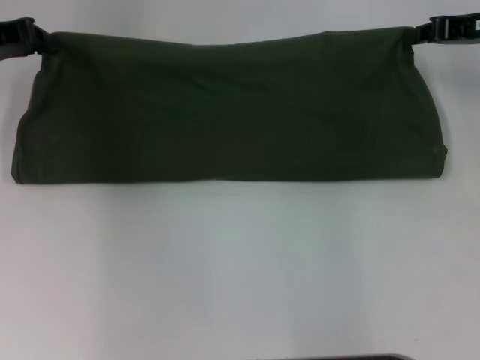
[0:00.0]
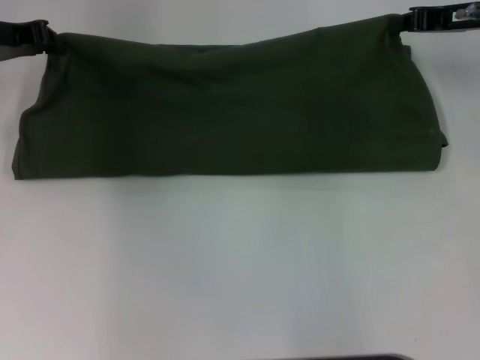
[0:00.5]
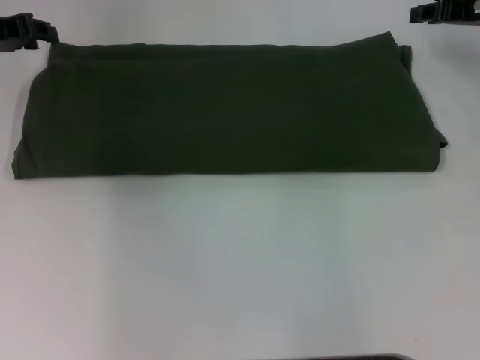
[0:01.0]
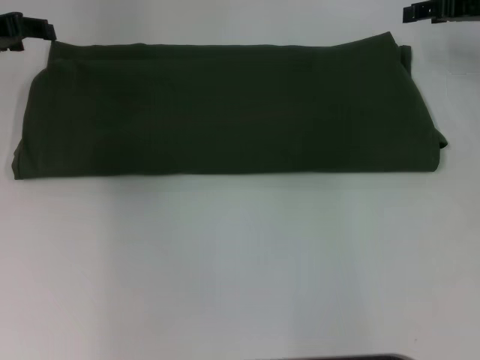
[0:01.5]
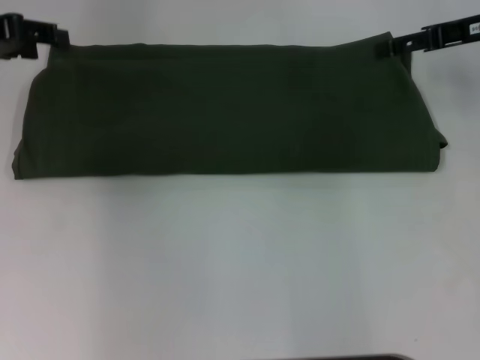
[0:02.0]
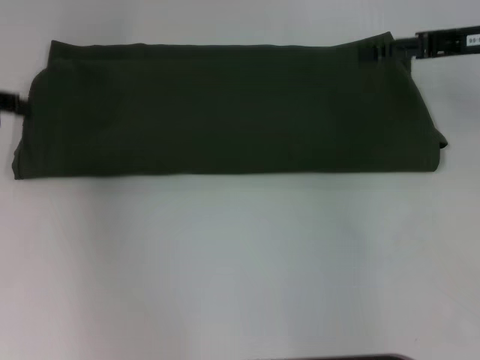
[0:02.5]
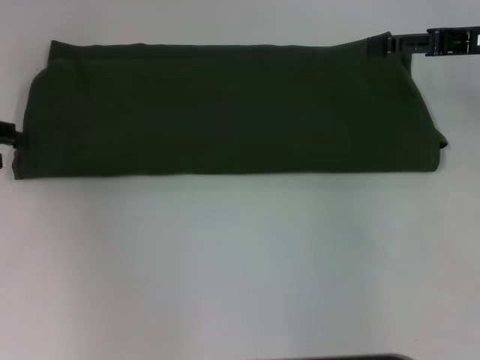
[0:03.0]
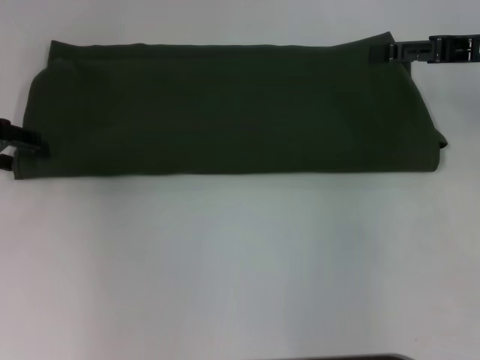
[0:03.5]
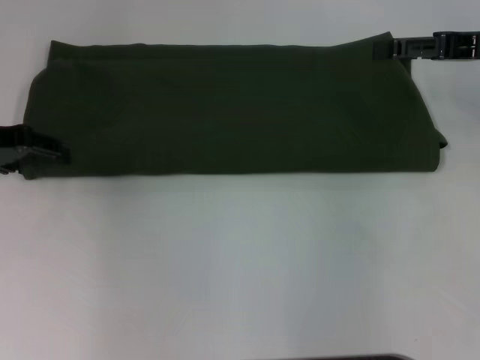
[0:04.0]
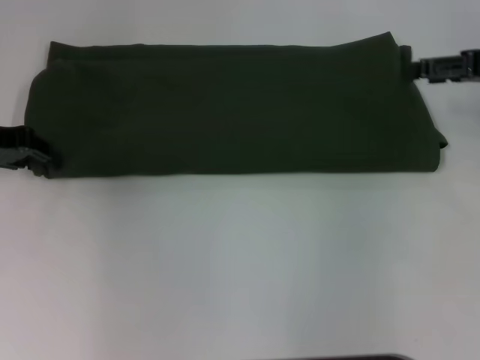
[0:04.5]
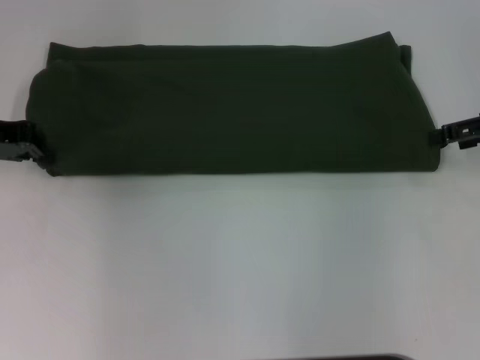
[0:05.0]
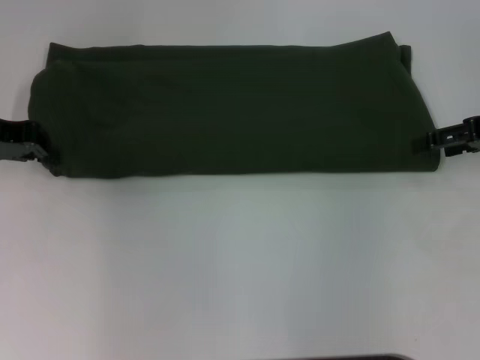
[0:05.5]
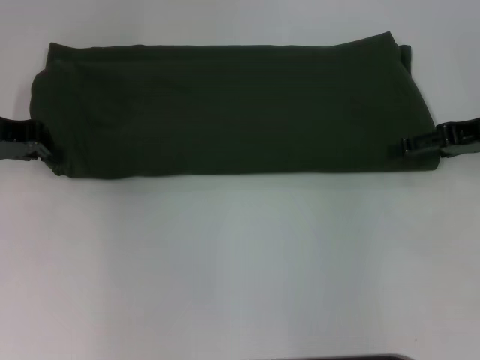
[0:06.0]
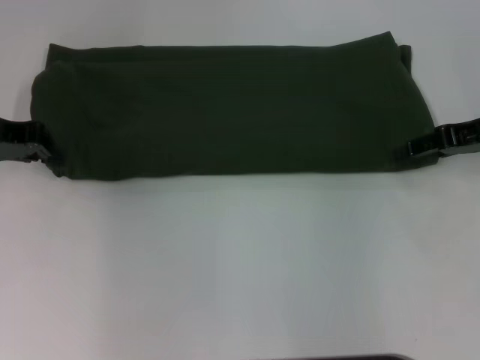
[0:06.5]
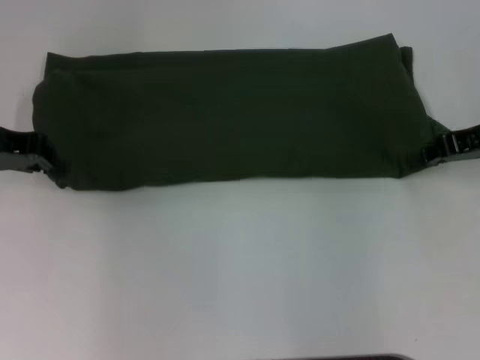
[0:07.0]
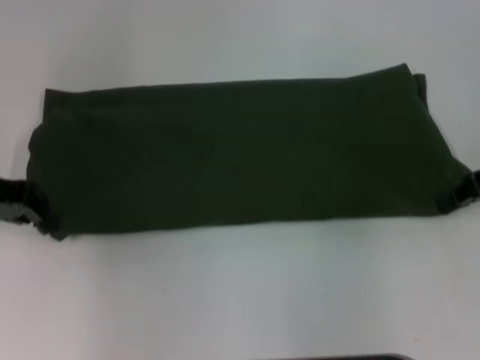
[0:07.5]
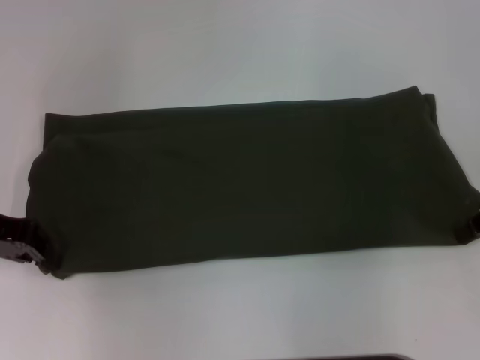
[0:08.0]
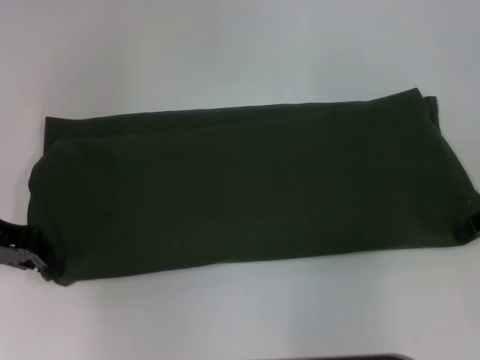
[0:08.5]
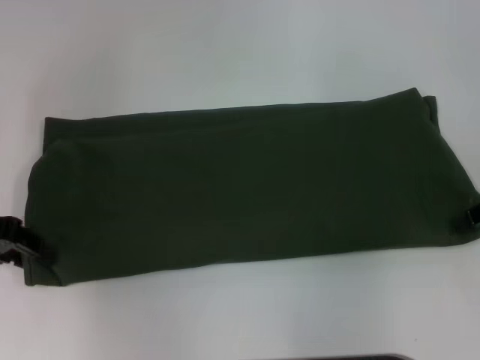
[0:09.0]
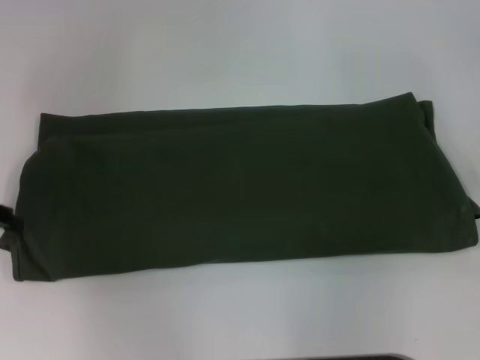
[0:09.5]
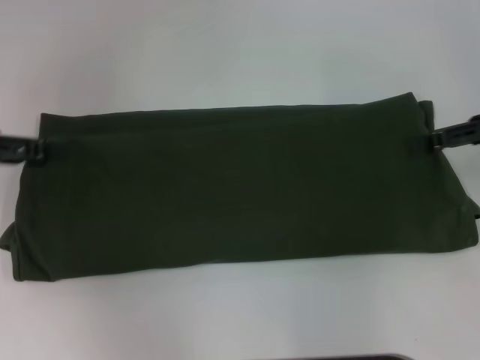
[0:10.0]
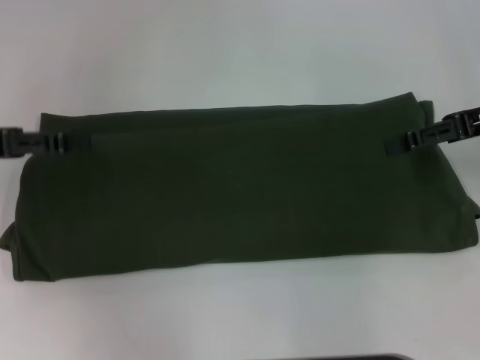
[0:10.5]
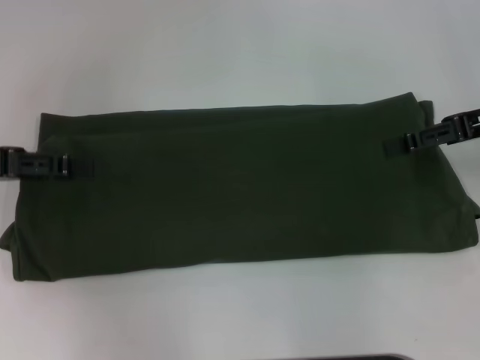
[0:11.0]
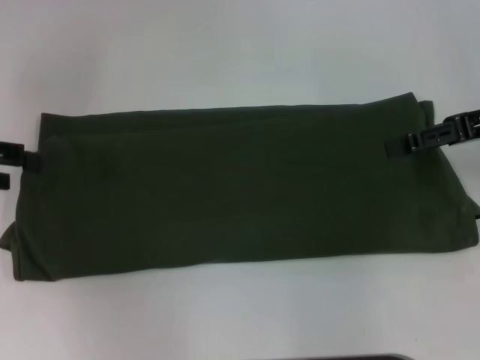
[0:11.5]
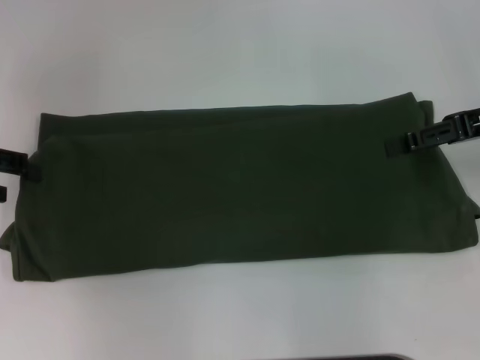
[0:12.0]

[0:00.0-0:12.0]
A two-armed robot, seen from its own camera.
0:00.0 to 0:02.0: The right gripper opens its fingers. The left gripper opens up.
0:02.0 to 0:04.0: The left gripper shifts some 5 cm downward.
0:04.0 to 0:06.0: The left gripper closes its fingers.
0:06.0 to 0:08.0: The right gripper closes its fingers, while the left gripper is displaced backward by some 5 cm.
0:08.0 to 0:10.0: The right gripper opens its fingers. The left gripper heads upward, covering roughly 5 cm, and opens.

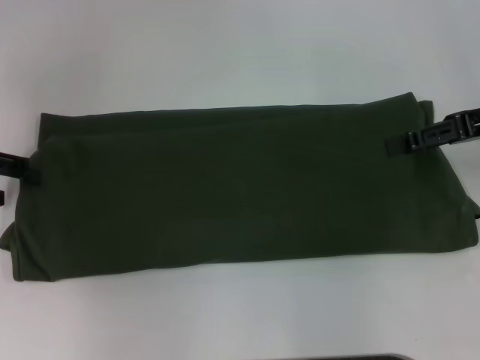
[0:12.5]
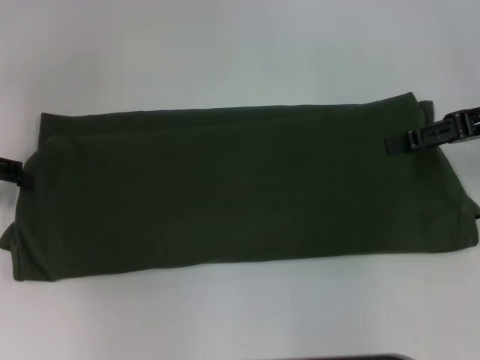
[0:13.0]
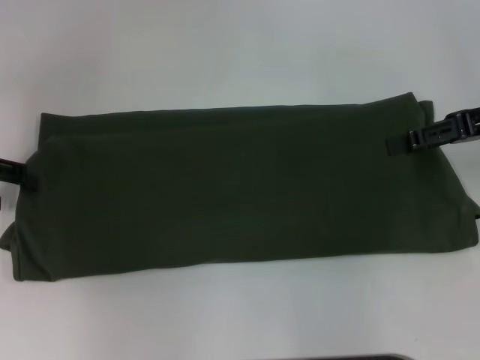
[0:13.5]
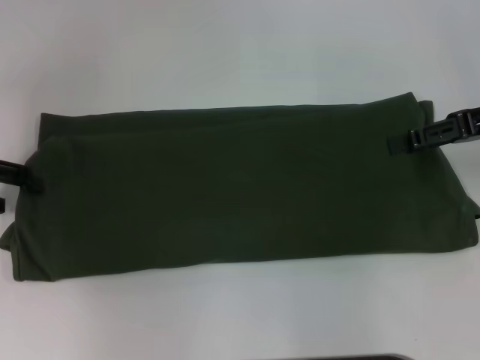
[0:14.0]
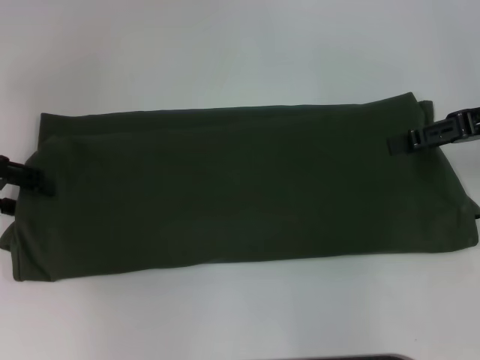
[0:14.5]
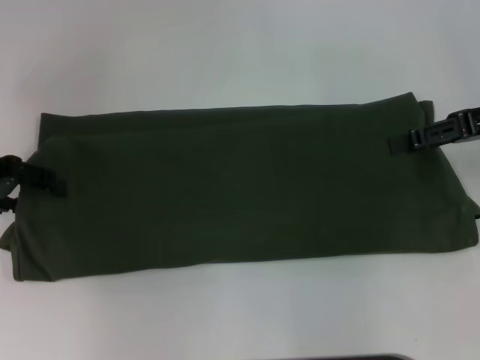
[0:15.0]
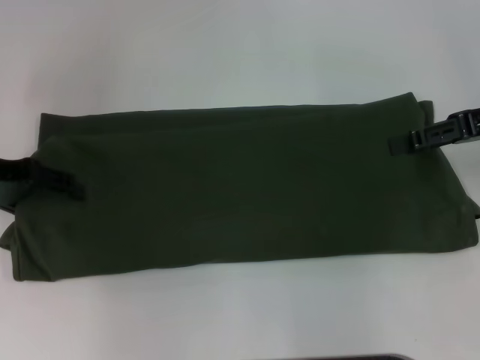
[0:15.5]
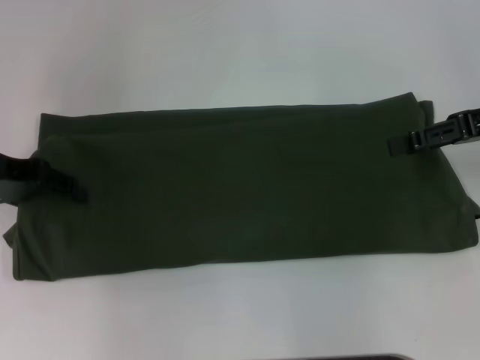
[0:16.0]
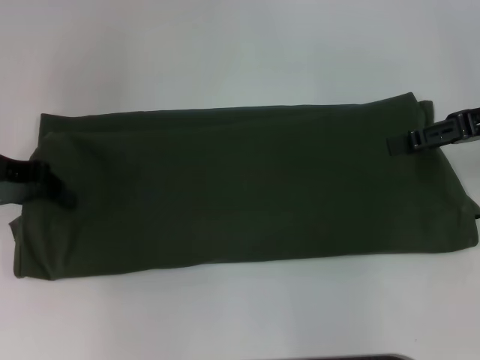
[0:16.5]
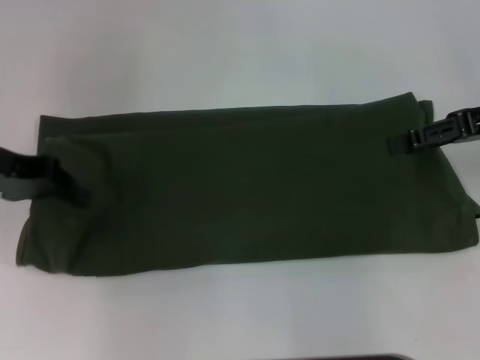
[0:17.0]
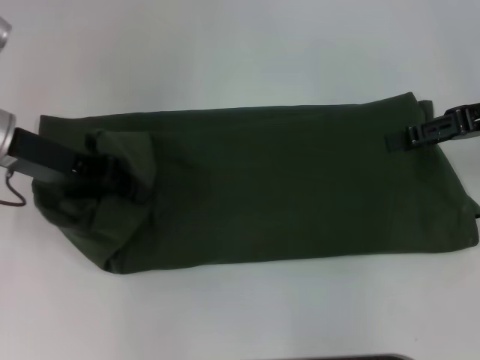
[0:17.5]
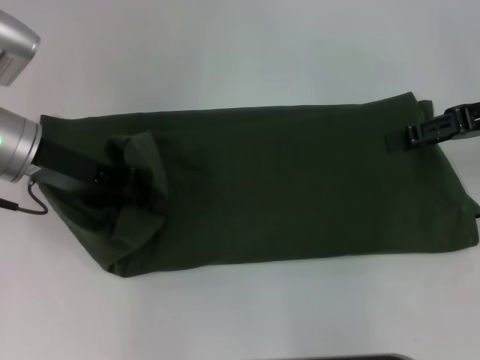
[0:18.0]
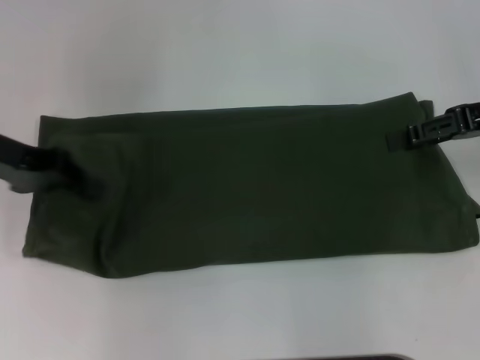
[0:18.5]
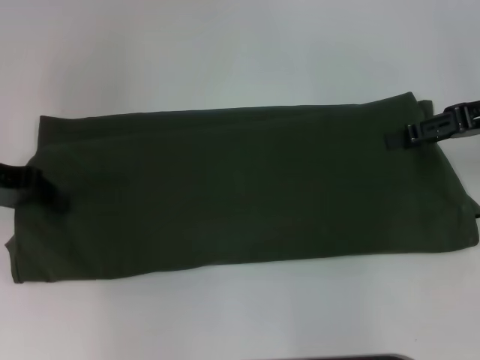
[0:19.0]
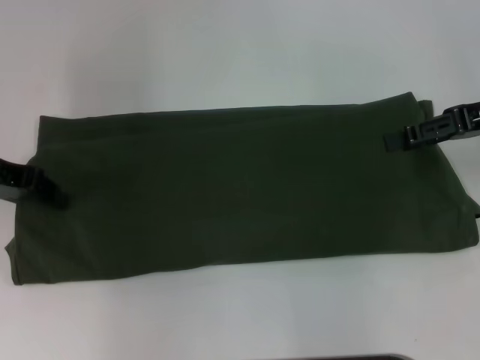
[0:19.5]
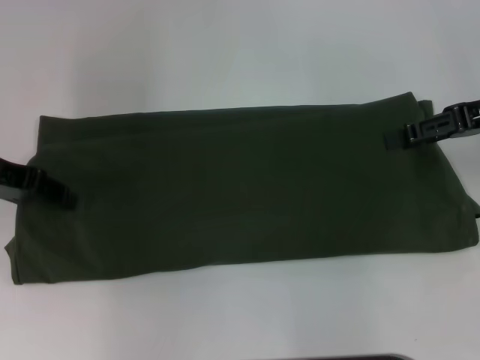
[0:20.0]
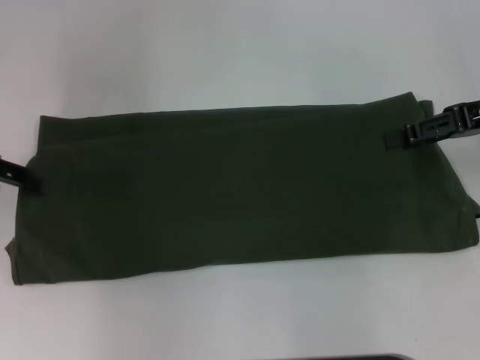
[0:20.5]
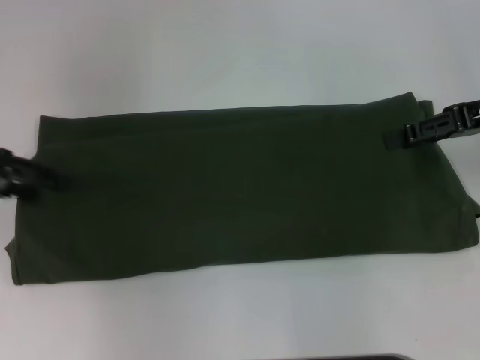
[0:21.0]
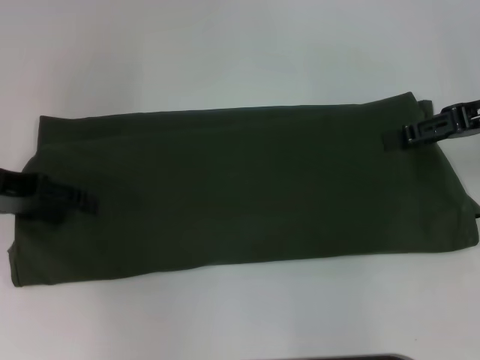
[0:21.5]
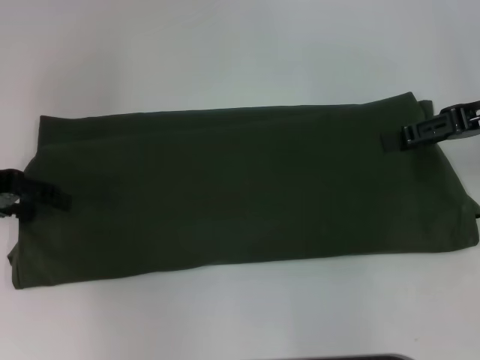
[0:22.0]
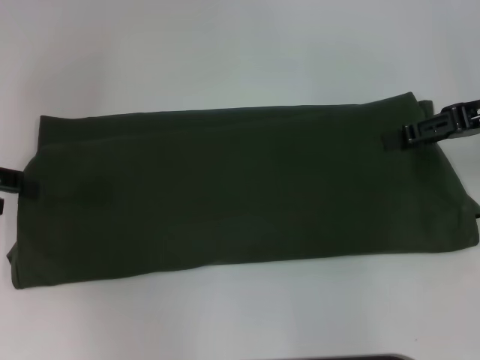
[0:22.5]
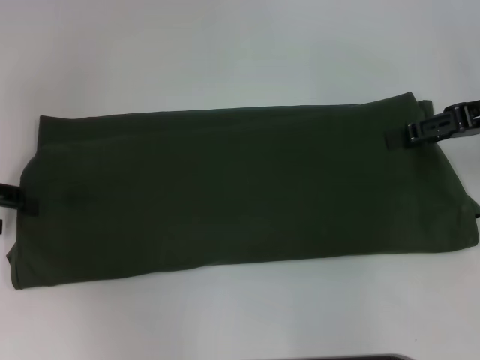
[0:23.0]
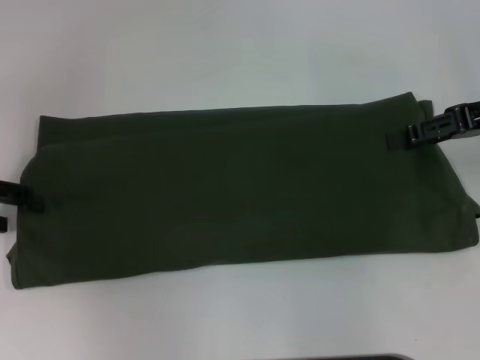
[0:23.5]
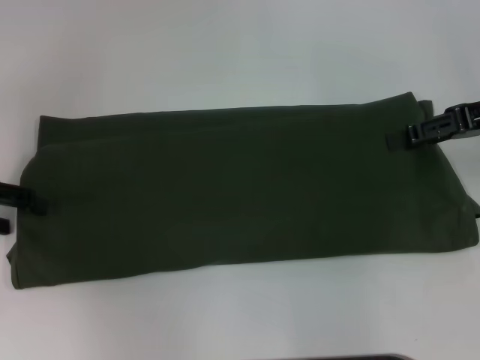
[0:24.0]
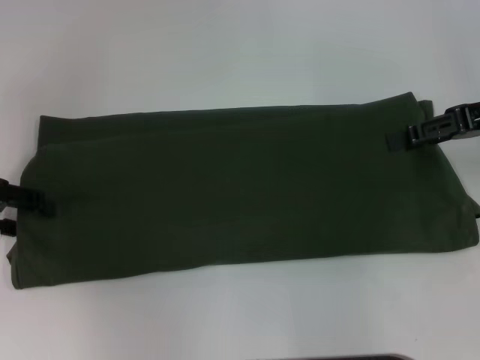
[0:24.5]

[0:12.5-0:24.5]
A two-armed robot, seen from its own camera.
0:14.5 to 0:16.5: The left gripper closes up.
0:16.5 to 0:18.5: The left gripper reaches roughly 10 cm to the right, then returns.
0:18.5 to 0:20.5: The left gripper opens.
0:22.5 to 0:24.5: The grippers make only small movements.

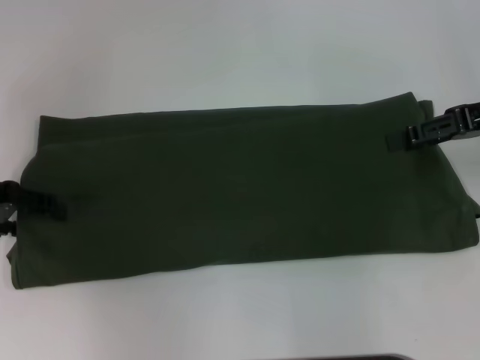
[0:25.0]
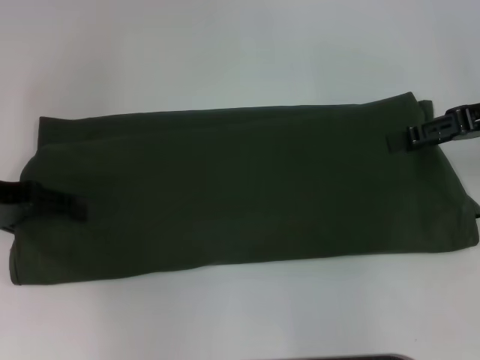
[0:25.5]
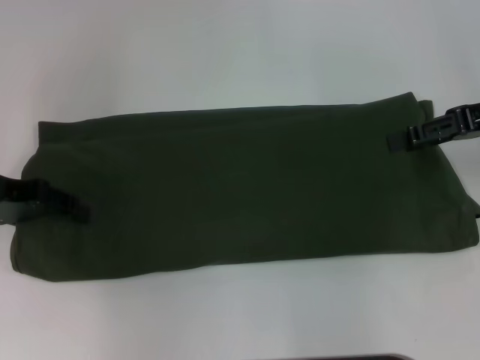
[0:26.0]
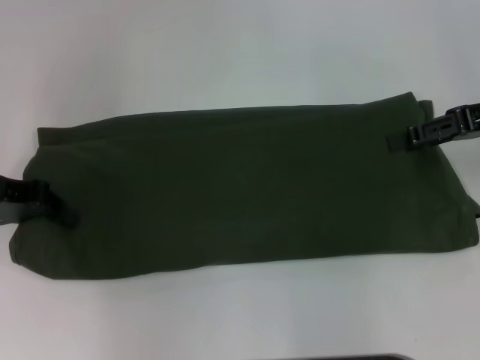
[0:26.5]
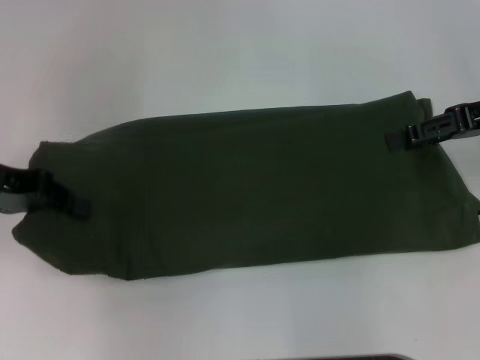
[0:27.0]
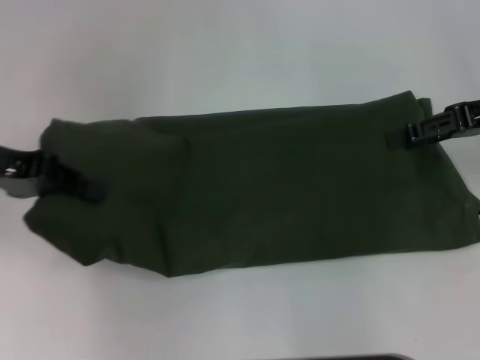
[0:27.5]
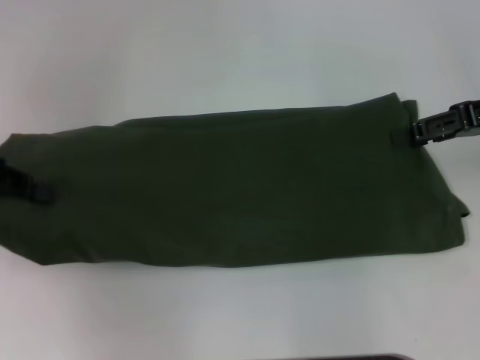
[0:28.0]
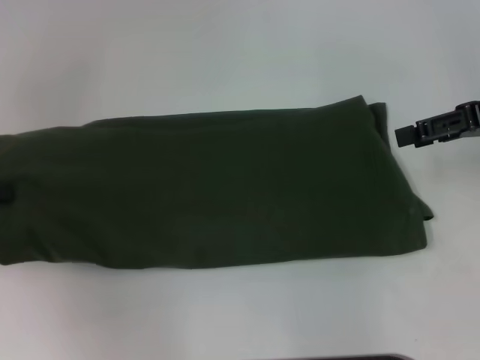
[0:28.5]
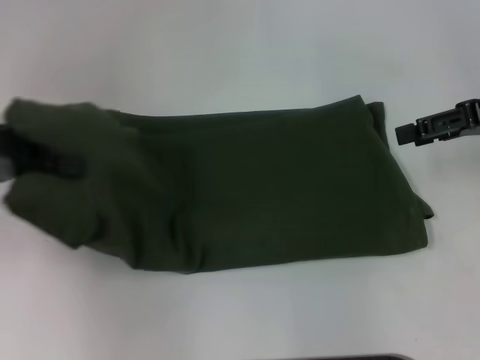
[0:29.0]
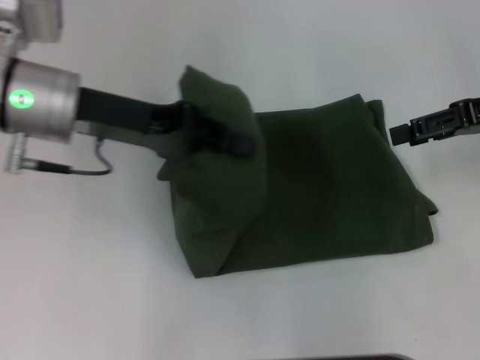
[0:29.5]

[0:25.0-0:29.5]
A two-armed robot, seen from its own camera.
0:25.0 to 0:27.0: The left gripper closes.
0:27.0 to 0:29.5: The left gripper heads to the right, covering approximately 10 cm.
